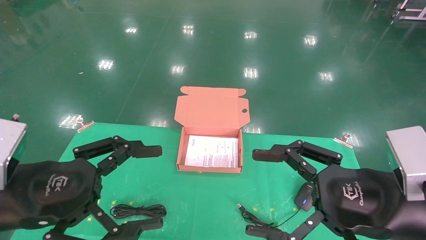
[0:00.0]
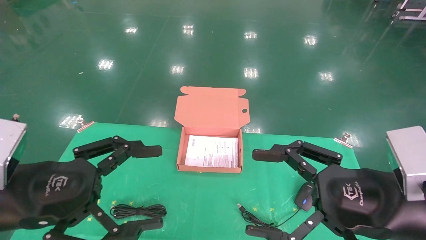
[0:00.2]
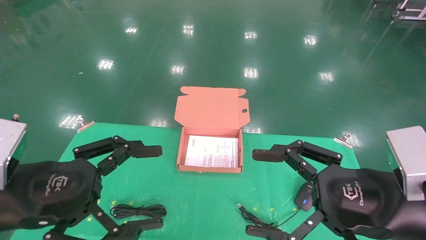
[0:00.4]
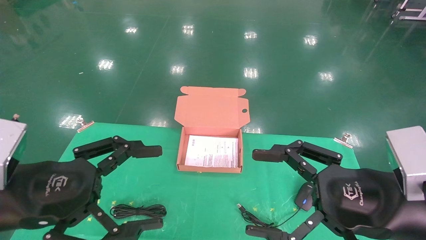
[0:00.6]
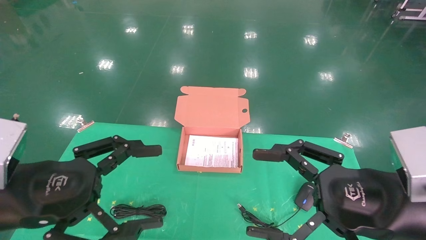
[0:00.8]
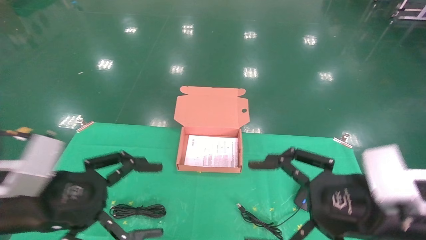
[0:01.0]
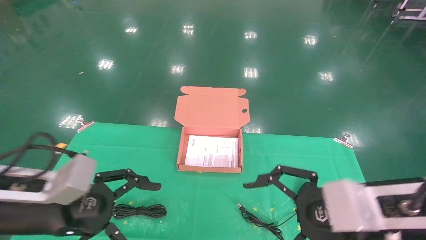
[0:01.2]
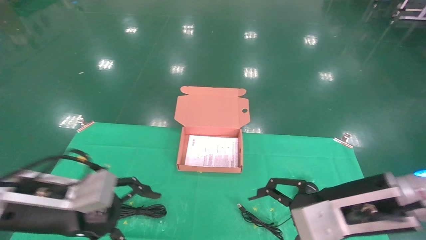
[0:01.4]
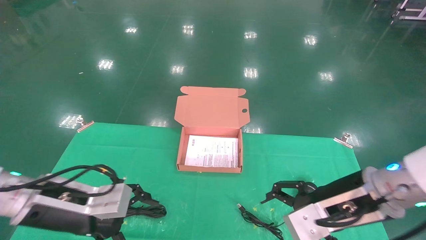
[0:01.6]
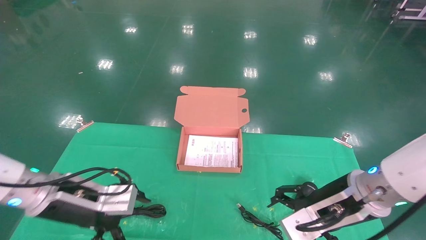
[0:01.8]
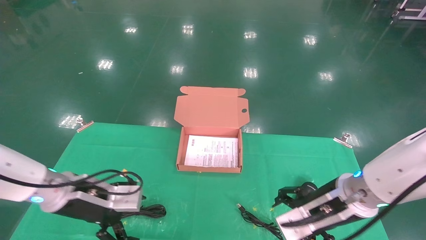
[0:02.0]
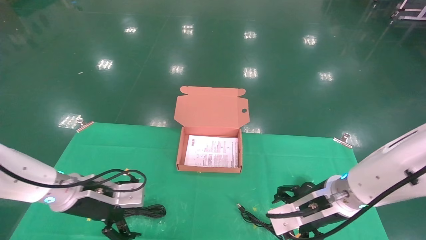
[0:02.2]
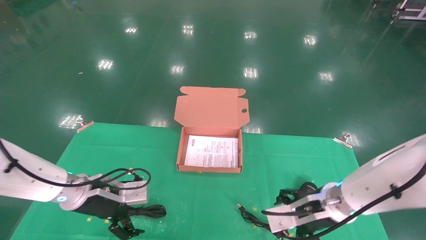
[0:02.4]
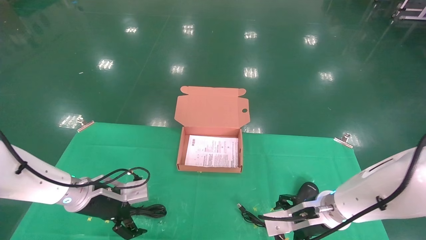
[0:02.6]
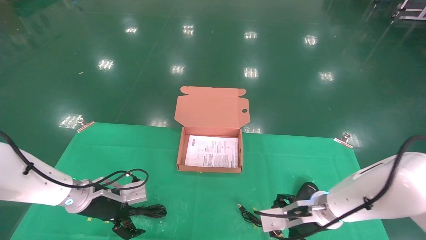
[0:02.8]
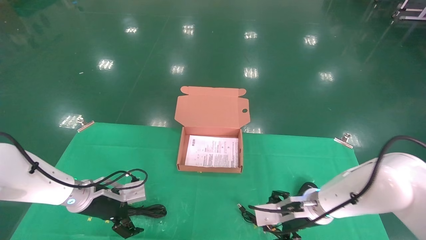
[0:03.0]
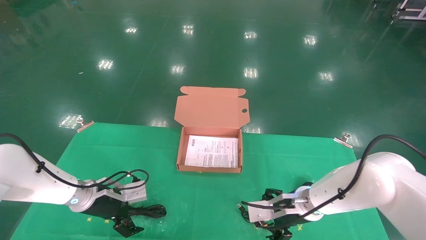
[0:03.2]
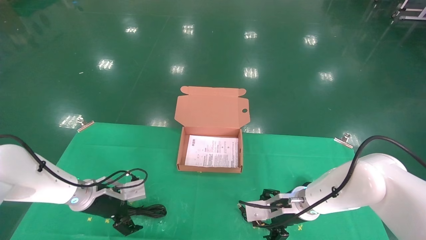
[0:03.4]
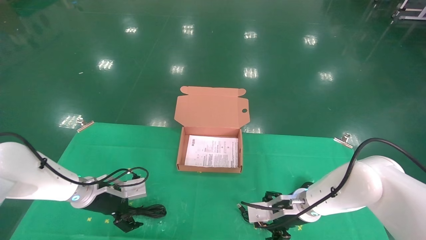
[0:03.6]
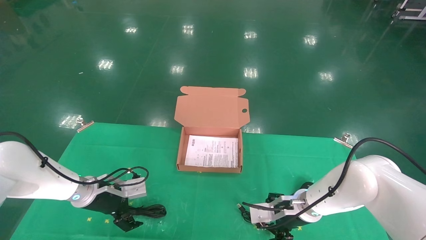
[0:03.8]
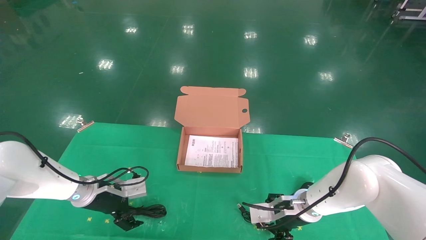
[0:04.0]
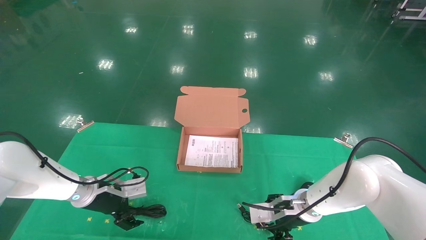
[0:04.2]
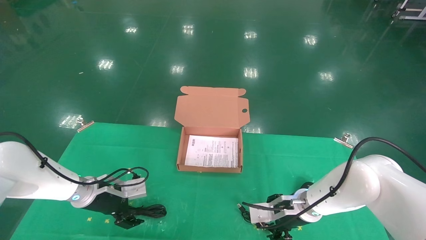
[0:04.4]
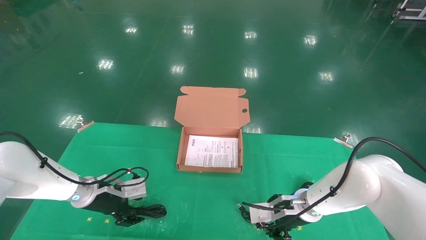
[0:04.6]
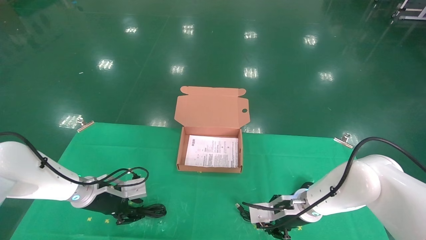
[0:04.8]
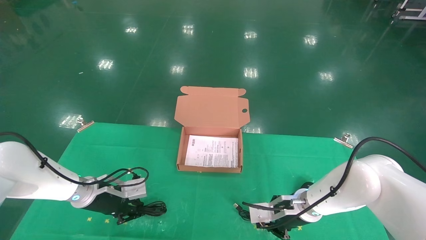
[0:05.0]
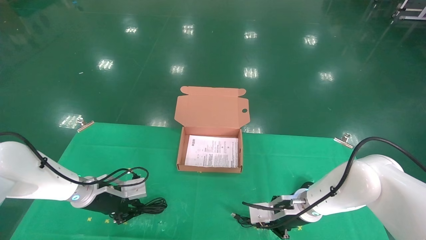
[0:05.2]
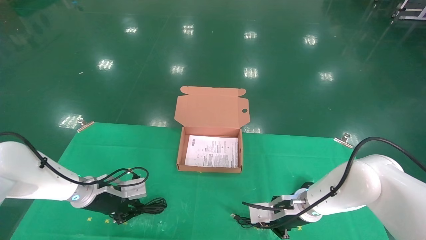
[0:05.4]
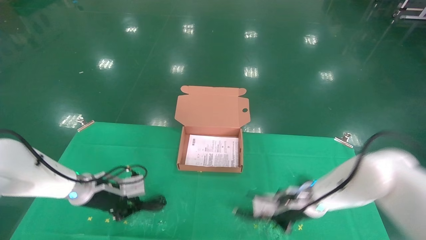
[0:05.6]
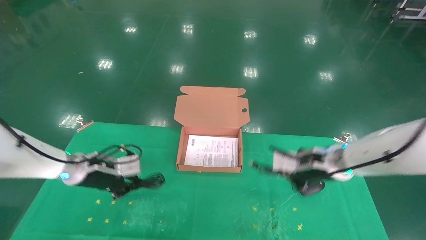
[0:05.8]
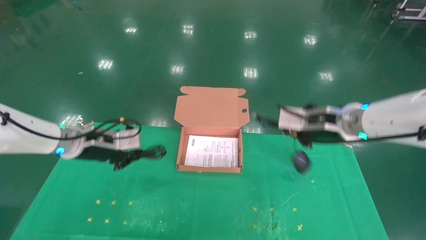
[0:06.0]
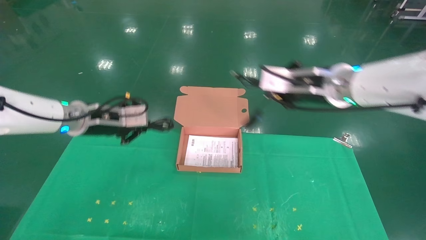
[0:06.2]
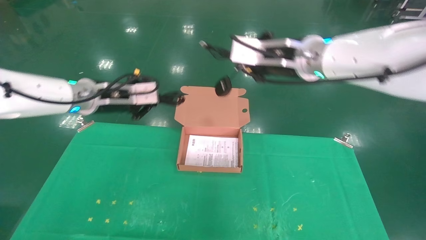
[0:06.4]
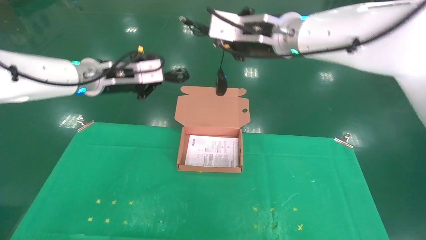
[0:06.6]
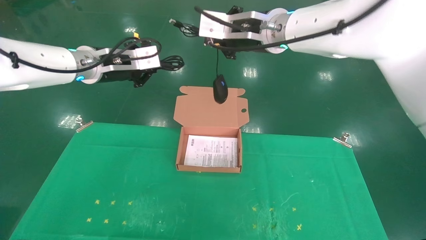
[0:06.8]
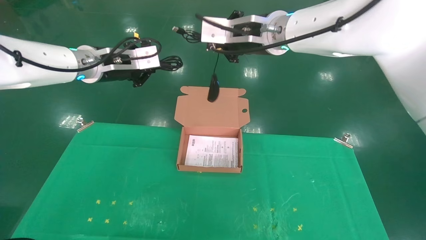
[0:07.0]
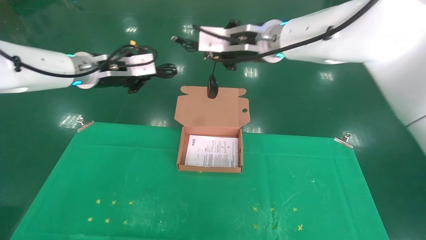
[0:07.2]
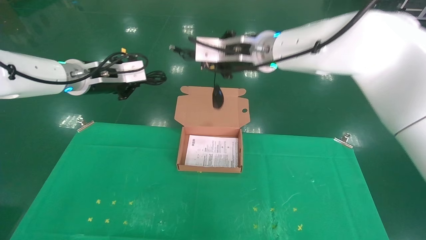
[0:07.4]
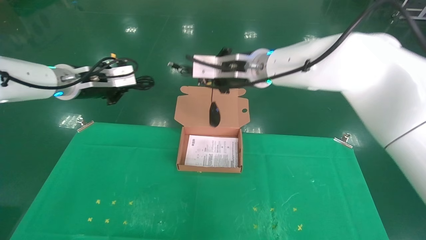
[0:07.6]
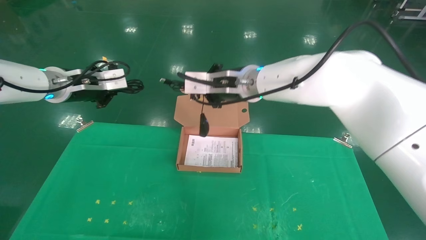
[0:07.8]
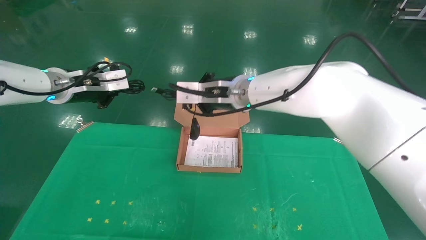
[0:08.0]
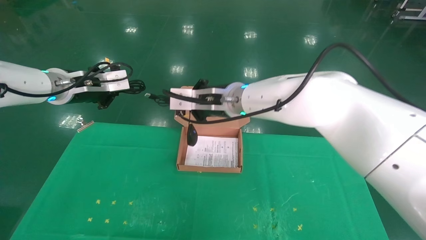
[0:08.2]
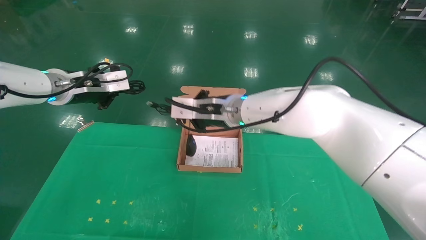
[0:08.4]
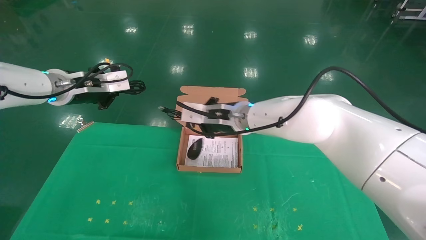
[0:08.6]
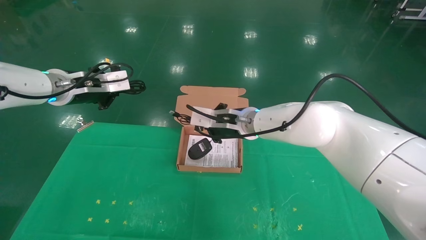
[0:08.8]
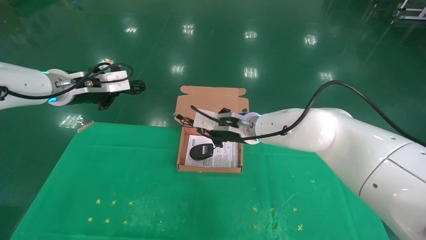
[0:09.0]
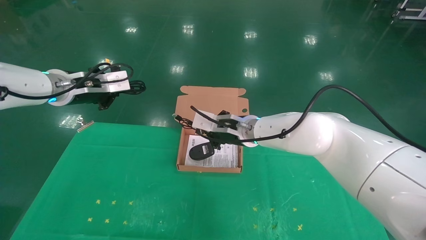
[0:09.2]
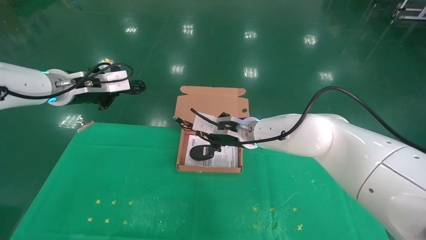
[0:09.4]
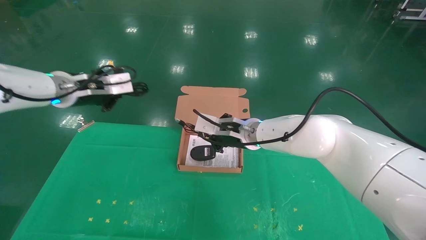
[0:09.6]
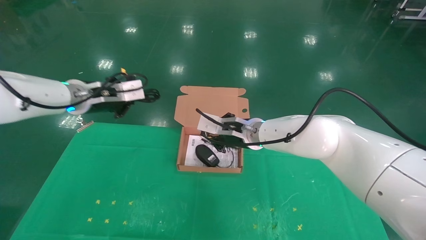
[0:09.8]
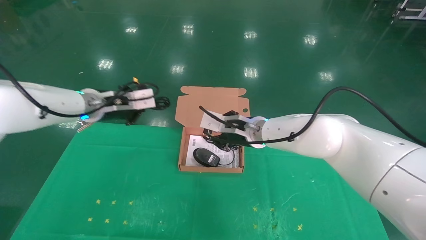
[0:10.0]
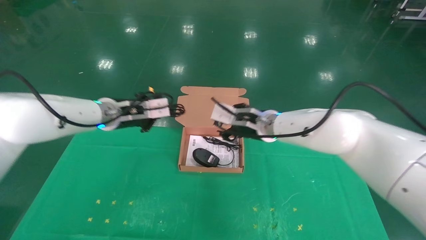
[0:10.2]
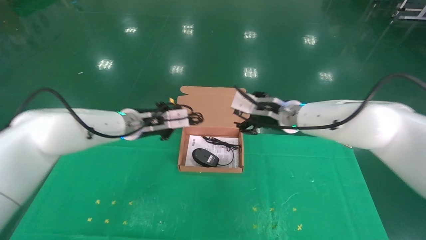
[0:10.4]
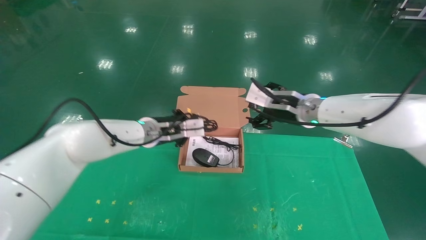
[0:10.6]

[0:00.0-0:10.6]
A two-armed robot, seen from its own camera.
Task of the whole recording: grasp data cable left put into box grasp mouse right put into box.
Step, 0:01.2 to 0:06.2: Grab and pick up both the mouse and power cord from the accessory packaging area at the same time.
0:00.0 to 0:01.6: The right gripper shifts approximately 10 cm forward. The left gripper moves forward and downward, approximately 10 cm.
0:01.6 to 0:03.0: The left gripper travels forward and downward by roughly 15 cm. The right gripper shifts about 15 cm downward and forward.
0:03.0 to 0:04.6: The right gripper closes.
0:04.6 to 0:06.0: The left gripper is displaced upward by approximately 15 cm, and closes its fingers; the right gripper heads upward, covering approximately 20 cm, and closes.
0:06.0 to 0:07.6: The right gripper goes about 20 cm to the left and upward, while the left gripper goes some 15 cm upward.
0:07.6 to 0:09.0: The right gripper travels downward by about 15 cm.
0:09.0 to 0:10.6: The right gripper heads to the right, covering about 15 cm, and opens up. The left gripper shifts approximately 20 cm to the right and downward.

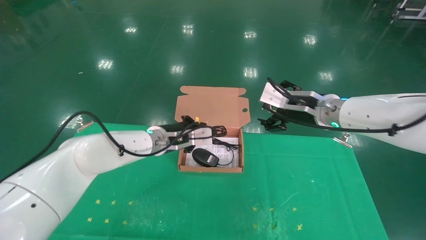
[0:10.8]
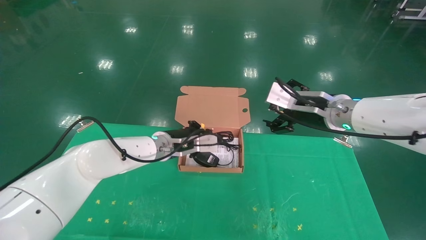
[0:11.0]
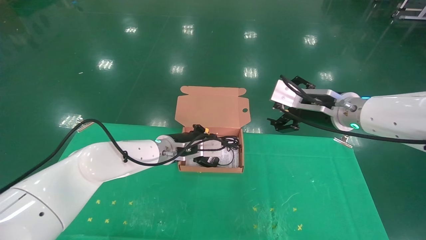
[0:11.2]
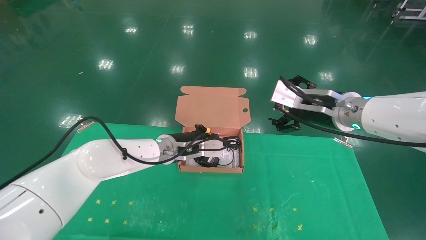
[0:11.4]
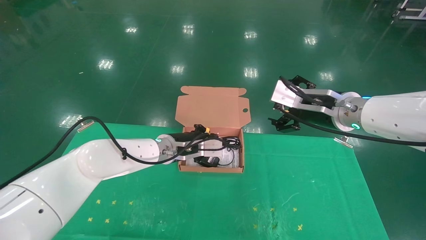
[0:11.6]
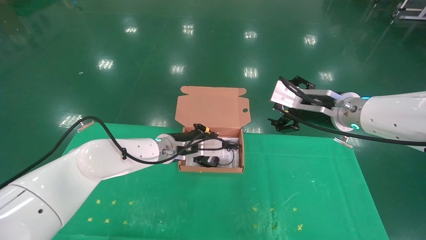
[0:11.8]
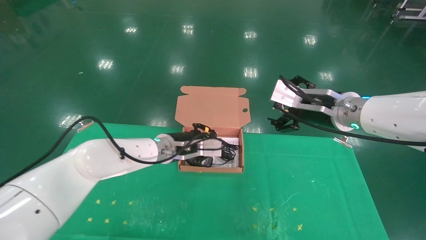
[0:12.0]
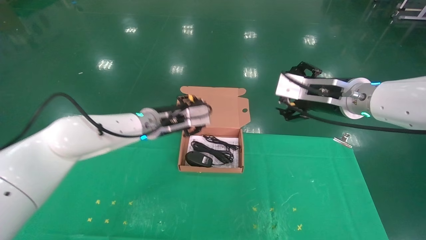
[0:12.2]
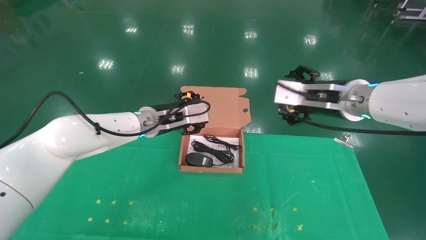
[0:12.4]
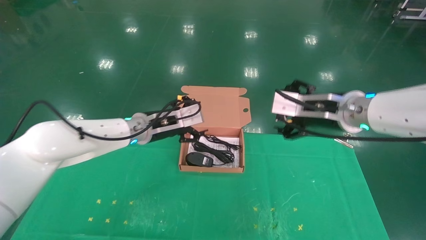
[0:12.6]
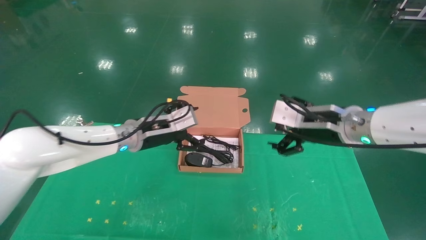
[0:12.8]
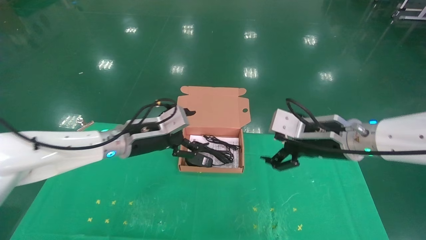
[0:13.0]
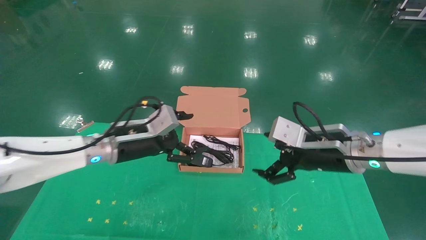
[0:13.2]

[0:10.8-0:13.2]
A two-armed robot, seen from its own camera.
Task of the whole recording: grasp data cable left put into box grasp mouse right put into box.
0:10.8 to 0:12.0: There are only small adjustments of the grippers.
0:12.0 to 0:13.2: The right gripper moves downward, roughly 5 cm, while the left gripper goes roughly 10 cm to the left and backward, and opens.
